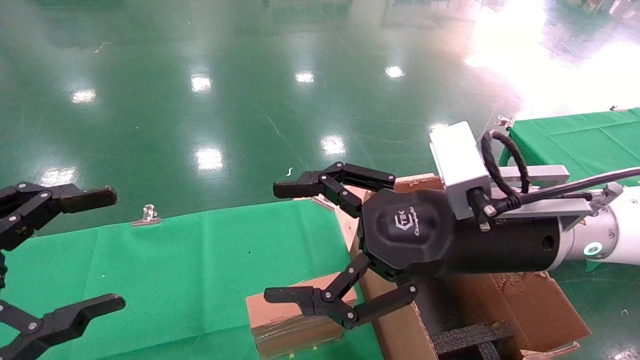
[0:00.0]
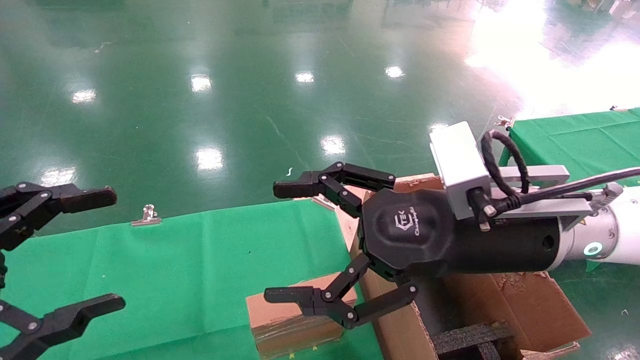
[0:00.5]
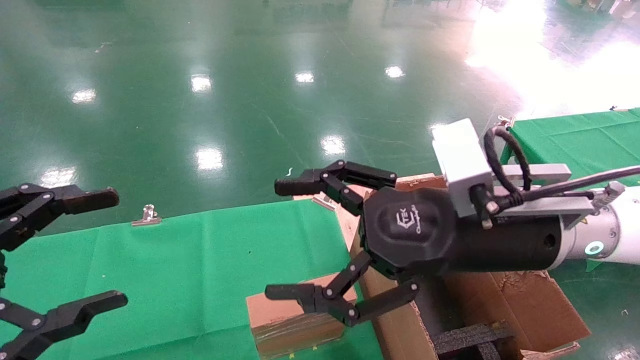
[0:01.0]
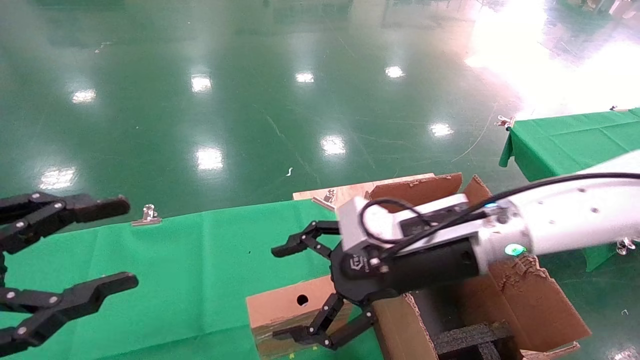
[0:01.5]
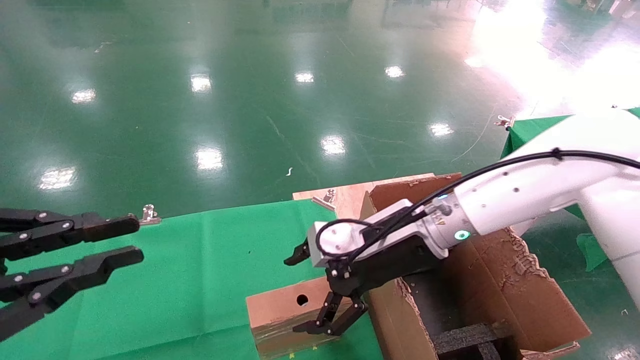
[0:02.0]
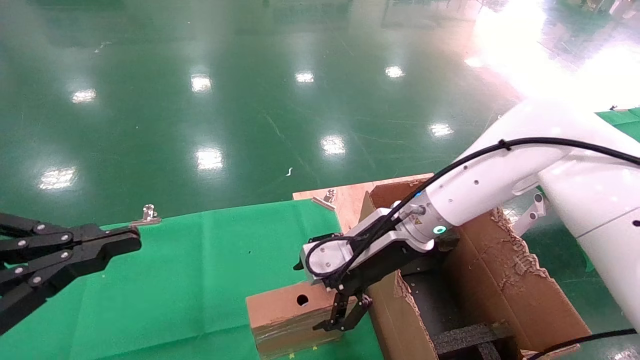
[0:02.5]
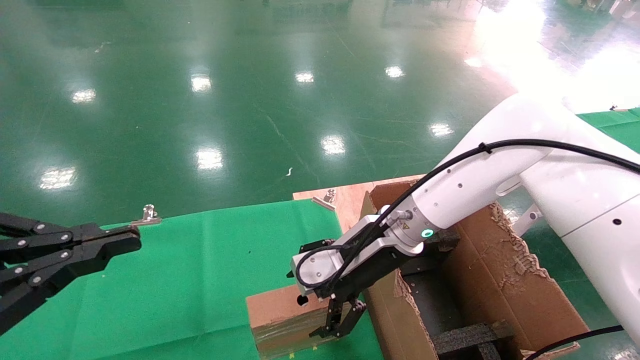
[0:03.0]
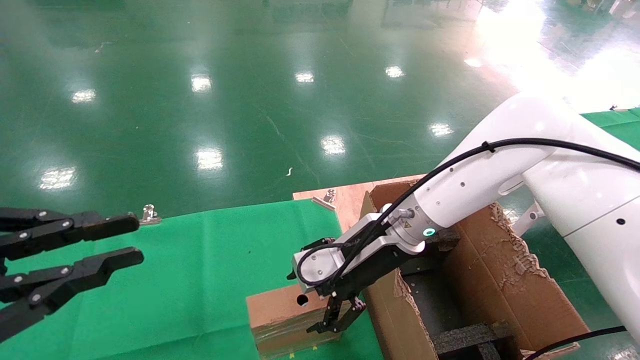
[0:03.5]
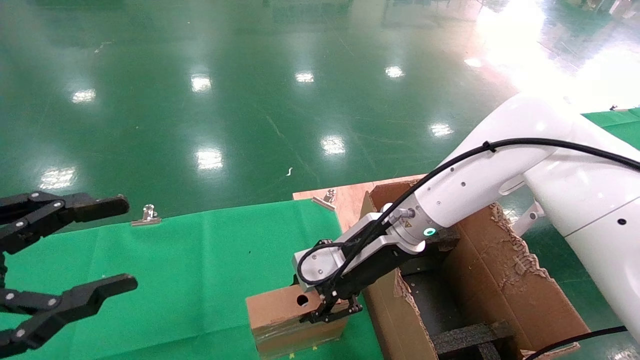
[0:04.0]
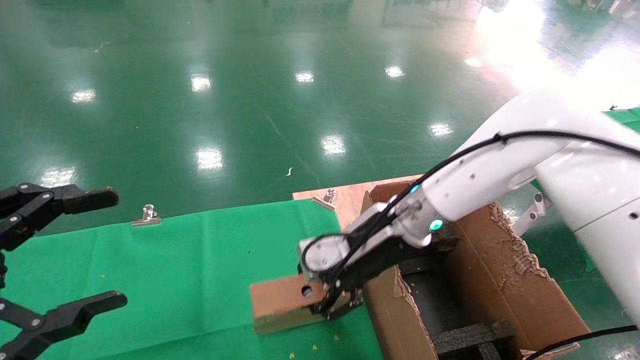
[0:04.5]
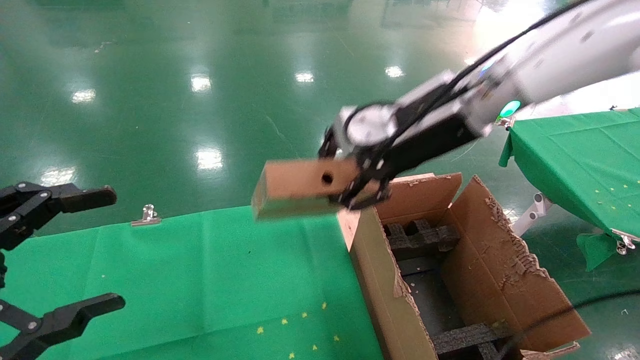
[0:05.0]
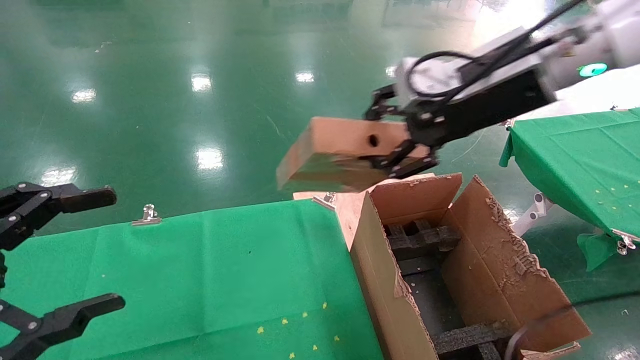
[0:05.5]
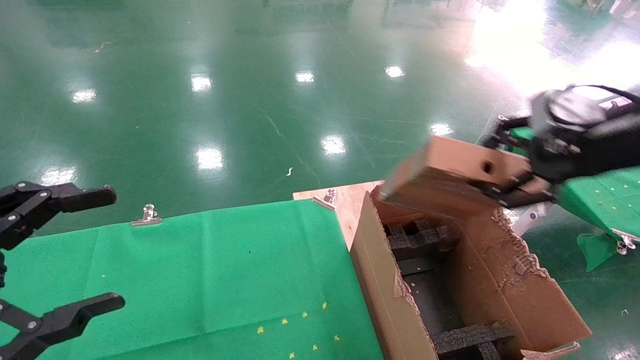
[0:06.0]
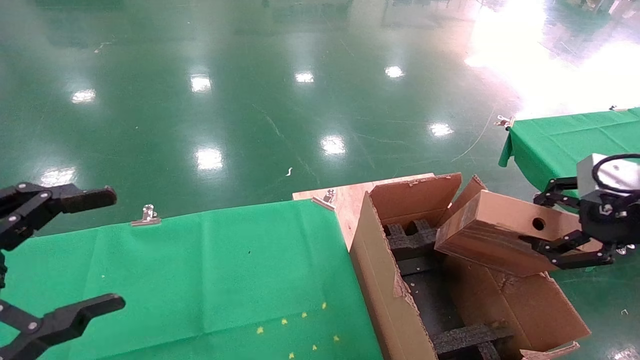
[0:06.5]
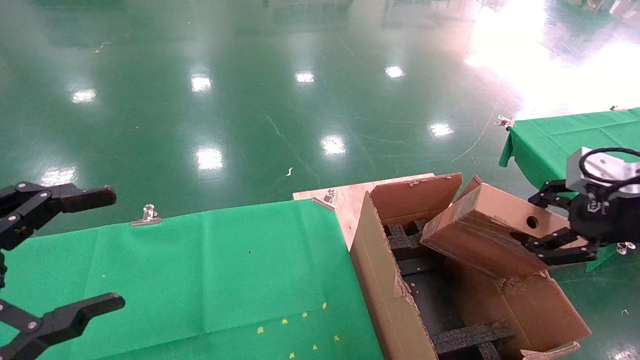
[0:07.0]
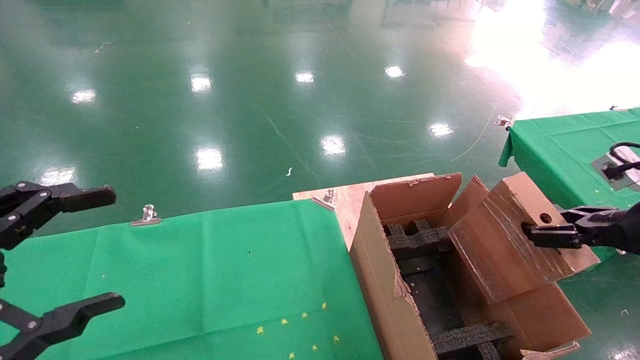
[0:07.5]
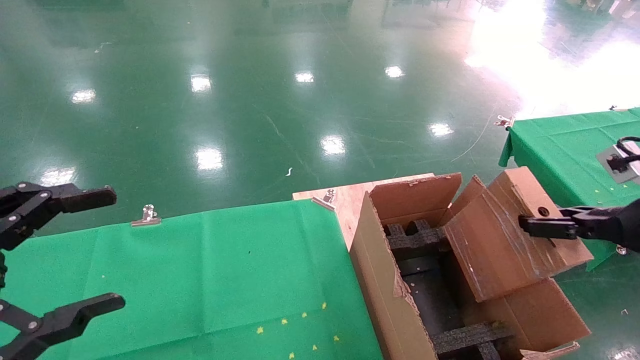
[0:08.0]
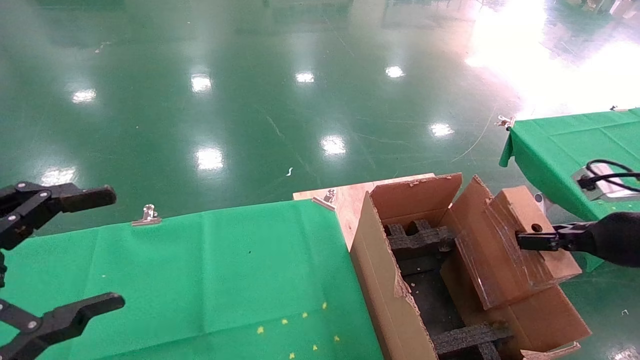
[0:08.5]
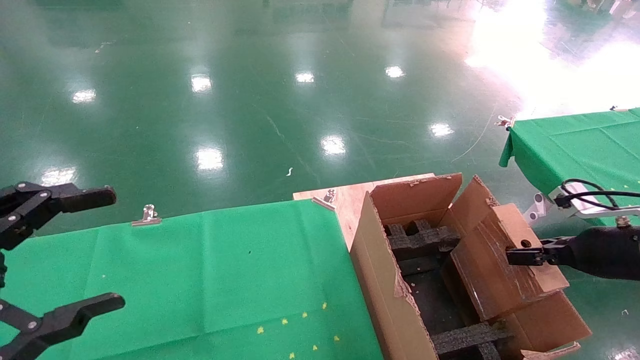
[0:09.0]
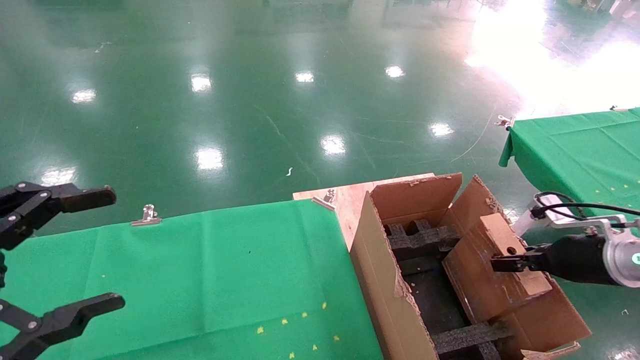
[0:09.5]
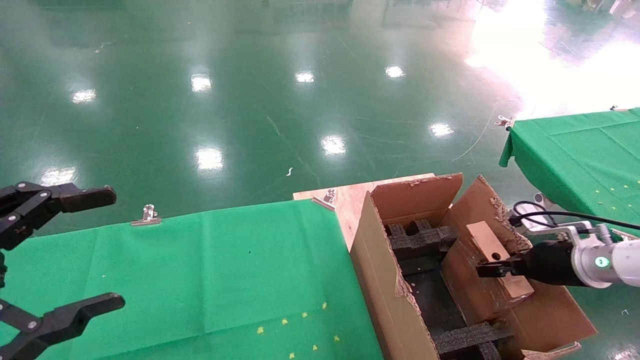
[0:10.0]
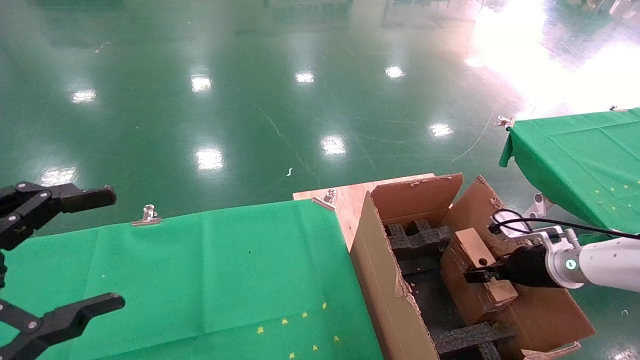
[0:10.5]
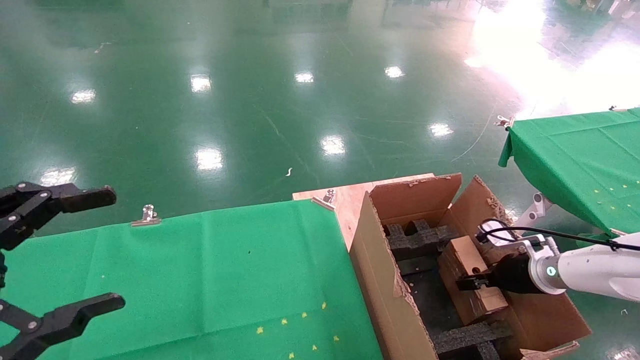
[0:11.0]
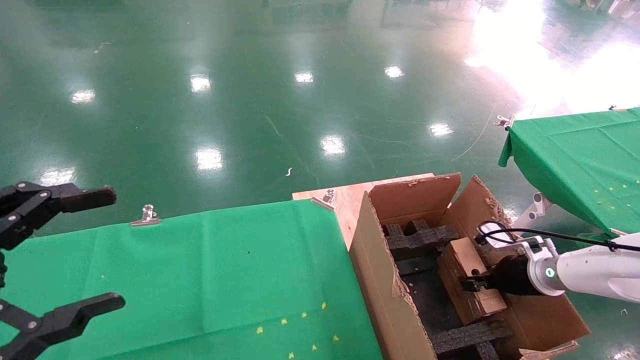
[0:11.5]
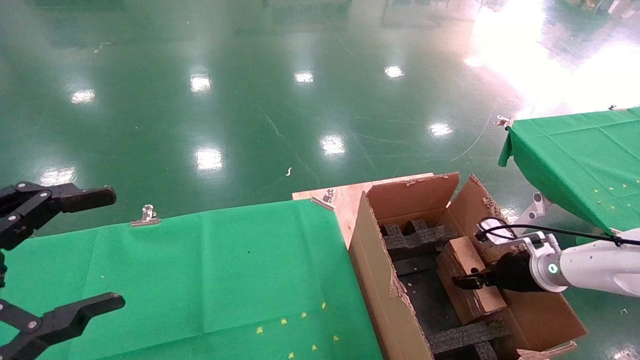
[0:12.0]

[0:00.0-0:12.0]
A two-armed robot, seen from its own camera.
Task of the whole recording: using a robotic arm to pick up a cardboard box and palace it the carton.
Step, 0:01.5 to 0:04.0: Pick up the mouse and the power cord paper box.
0:00.0 to 0:02.0: The right gripper heads forward and downward, covering some 10 cm; the left gripper closes up.
0:02.0 to 0:04.0: The right gripper closes.
0:04.0 to 0:06.0: The right gripper shifts approximately 30 cm to the right, upward and backward, and closes up, while the left gripper opens.
0:06.0 to 0:08.0: The right gripper heads downward and to the right, covering some 15 cm.
0:08.0 to 0:10.0: The right gripper goes roughly 15 cm downward and forward.
0:10.0 to 0:12.0: The right gripper shifts by about 5 cm, and opens.

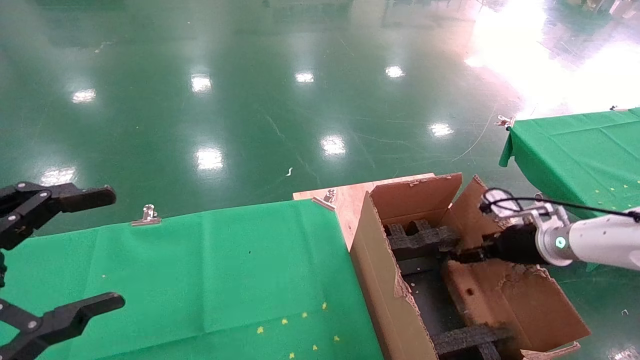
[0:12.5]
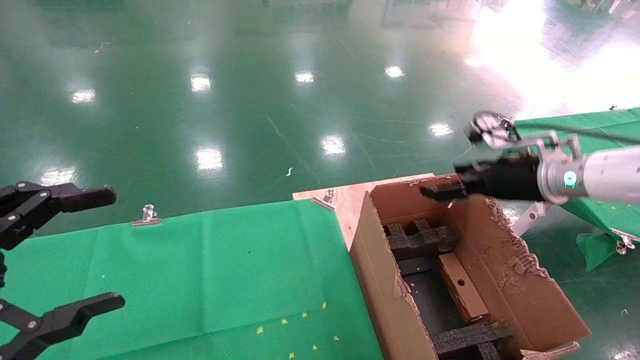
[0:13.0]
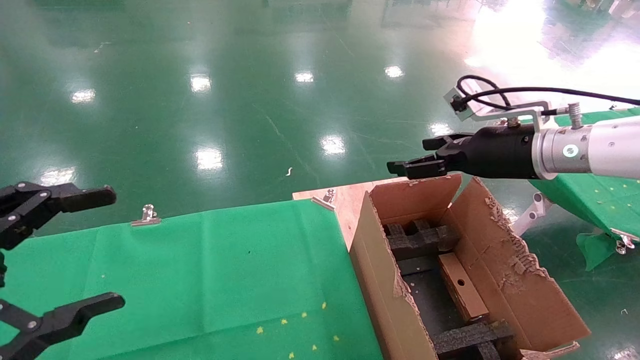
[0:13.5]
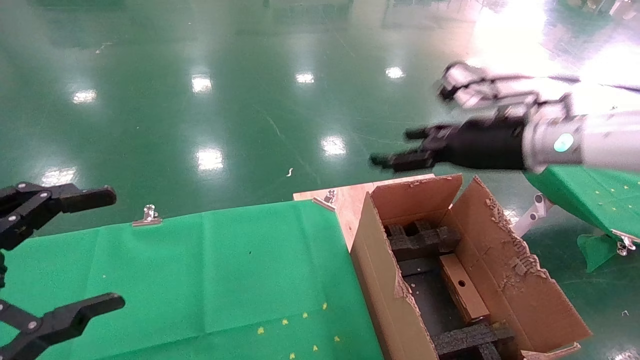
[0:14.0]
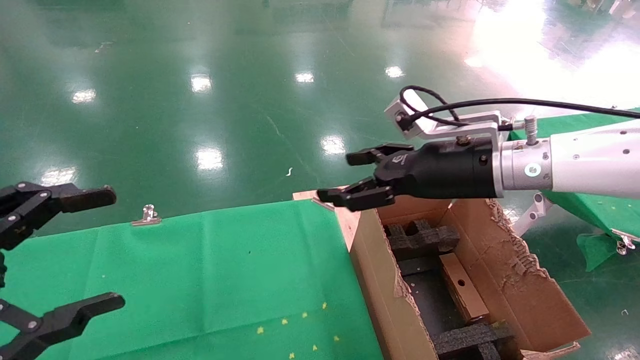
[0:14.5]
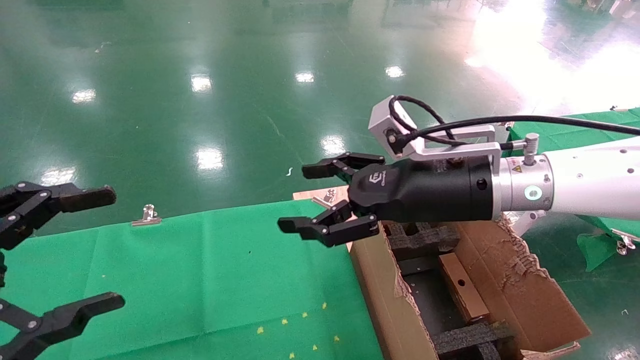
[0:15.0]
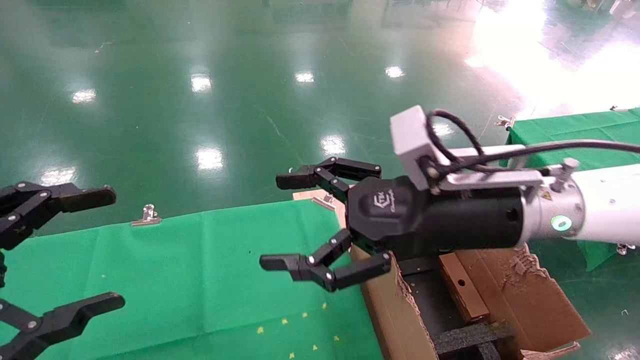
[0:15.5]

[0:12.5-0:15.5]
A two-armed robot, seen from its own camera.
Task of the whole recording: using a robotic arm to pick up a cardboard box and palace it the carton.
0:12.5 to 0:14.0: The right gripper travels upward and to the left by approximately 20 cm.
0:14.0 to 0:15.5: The right gripper shifts roughly 15 cm to the left and backward.

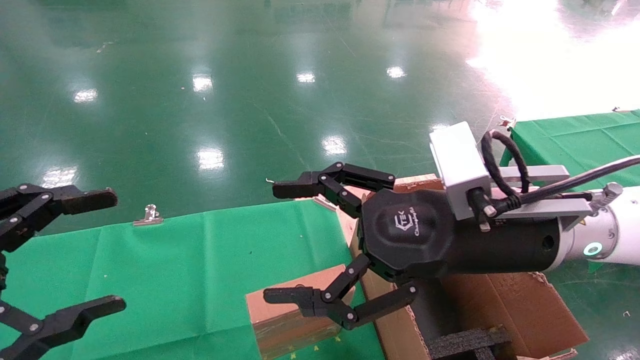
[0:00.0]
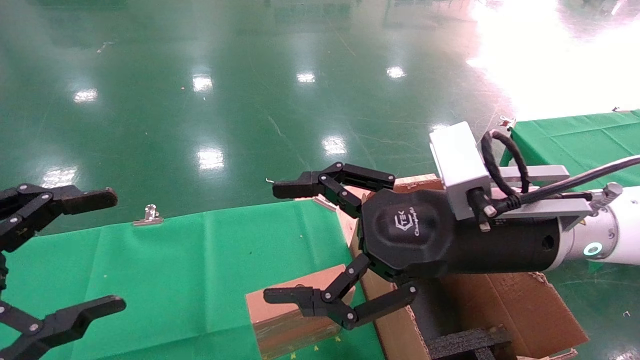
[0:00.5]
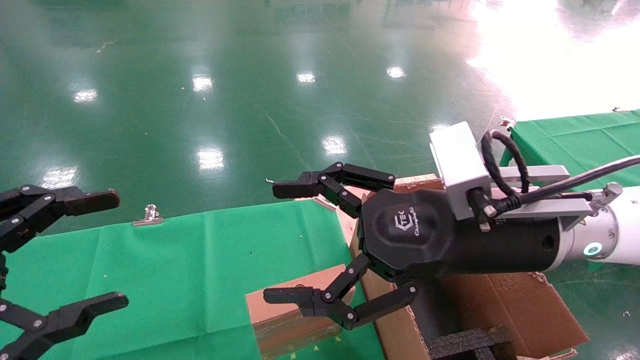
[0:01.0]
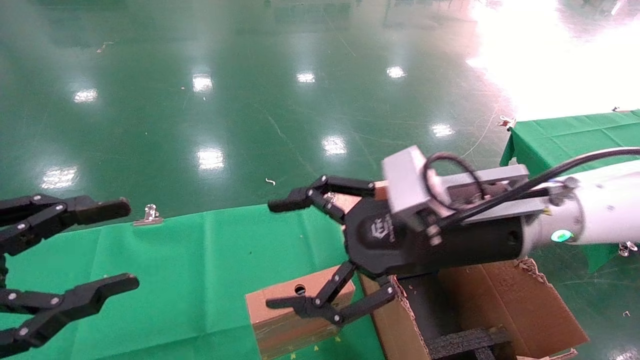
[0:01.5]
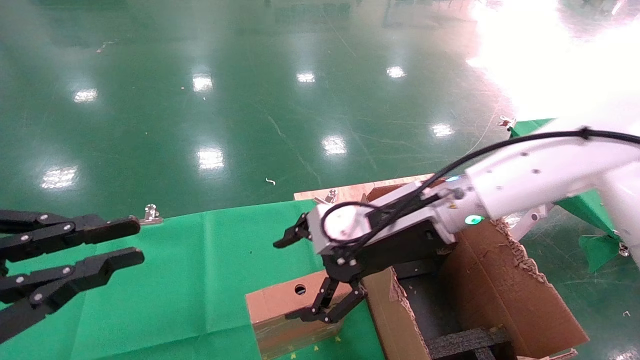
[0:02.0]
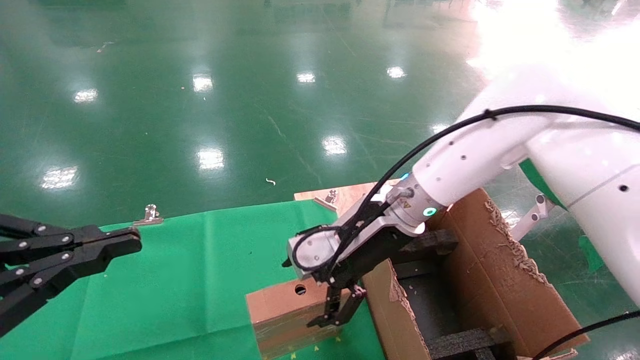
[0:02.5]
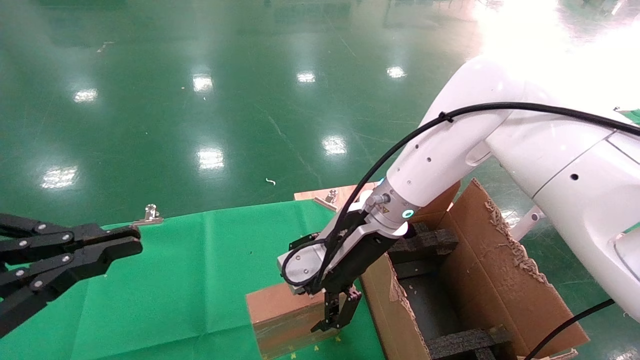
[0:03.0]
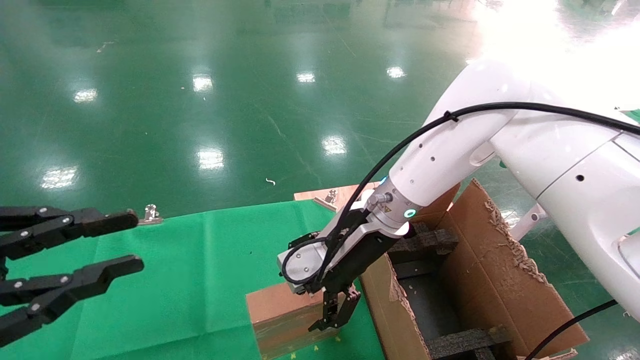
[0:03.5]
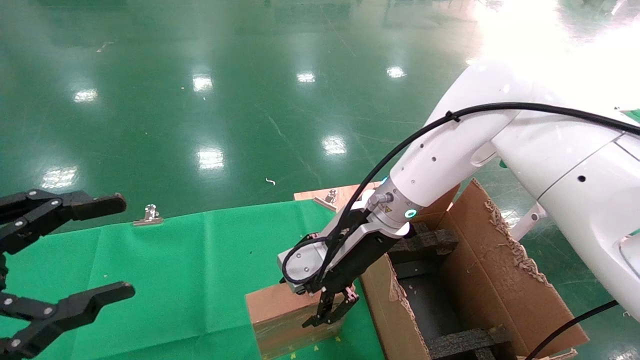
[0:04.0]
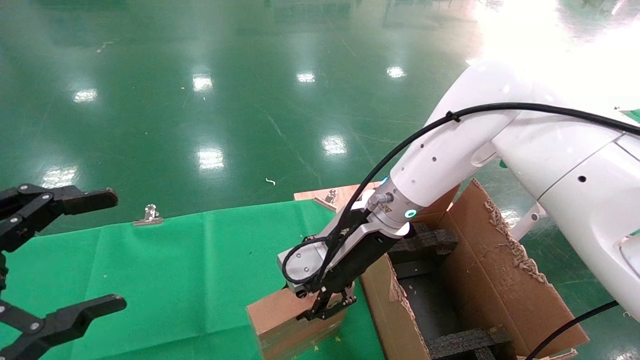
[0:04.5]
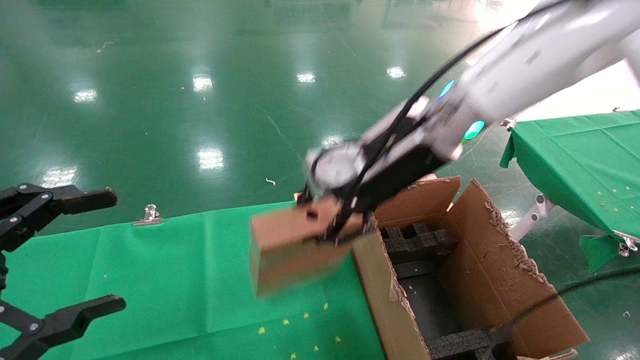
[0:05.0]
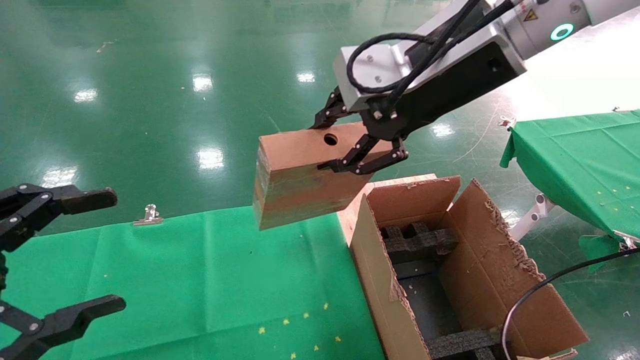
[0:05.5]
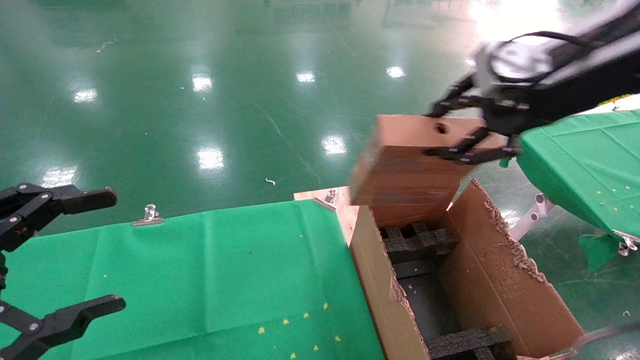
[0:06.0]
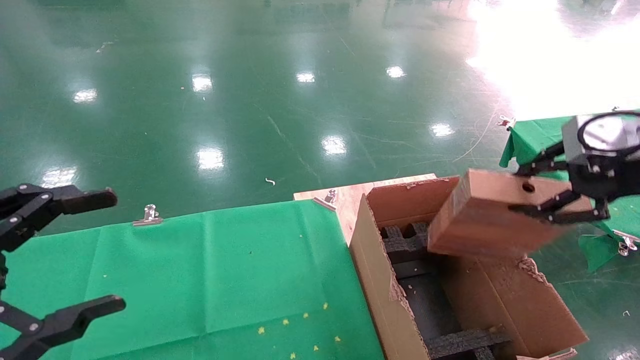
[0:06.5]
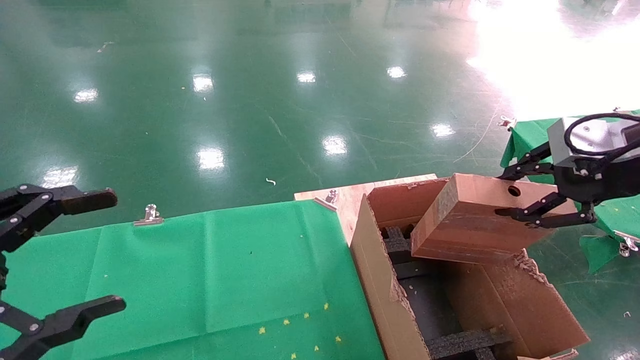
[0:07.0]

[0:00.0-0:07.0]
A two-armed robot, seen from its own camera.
Task of the whole recording: using a robotic arm to pick up a cardboard box and palace it the carton.
Step, 0:02.0 to 0:05.0: Pick up the mouse and the power cord paper box.
0:00.0 to 0:02.0: The right gripper is displaced forward by about 10 cm, while the left gripper closes up.
0:02.0 to 0:03.5: The right gripper shifts by some 5 cm.
0:03.5 to 0:05.0: The left gripper opens up, while the right gripper goes about 15 cm upward, and closes its fingers.
0:05.0 to 0:07.0: The right gripper shifts some 25 cm to the right and backward.
